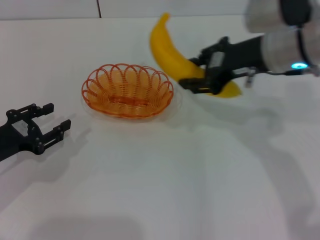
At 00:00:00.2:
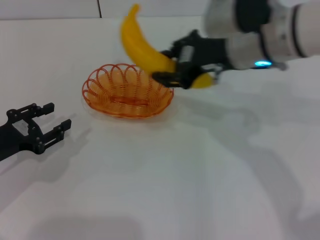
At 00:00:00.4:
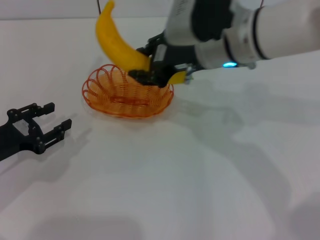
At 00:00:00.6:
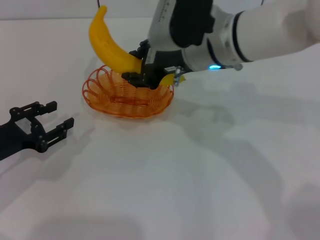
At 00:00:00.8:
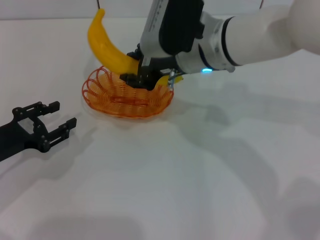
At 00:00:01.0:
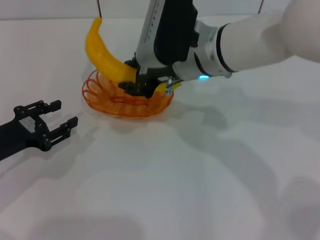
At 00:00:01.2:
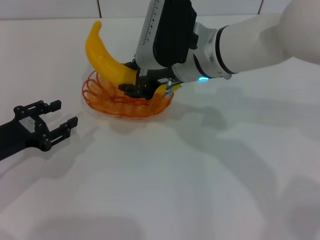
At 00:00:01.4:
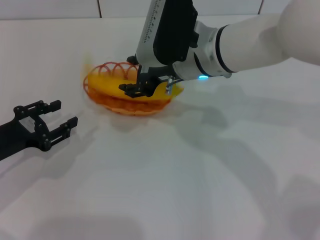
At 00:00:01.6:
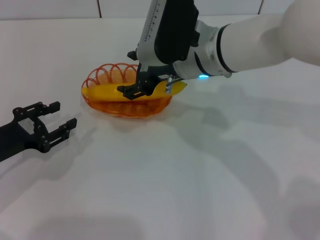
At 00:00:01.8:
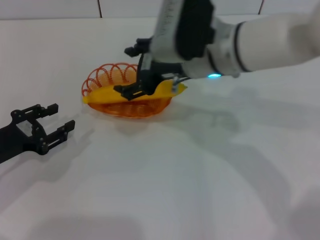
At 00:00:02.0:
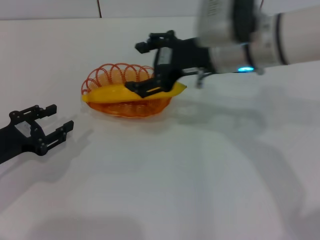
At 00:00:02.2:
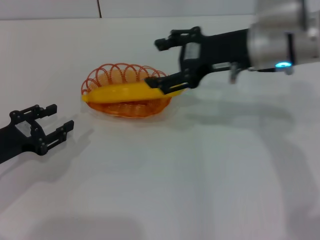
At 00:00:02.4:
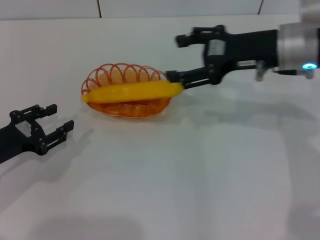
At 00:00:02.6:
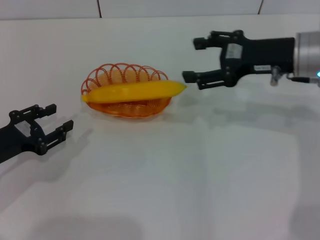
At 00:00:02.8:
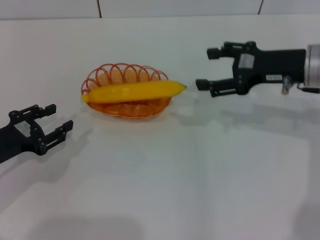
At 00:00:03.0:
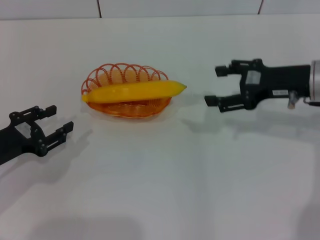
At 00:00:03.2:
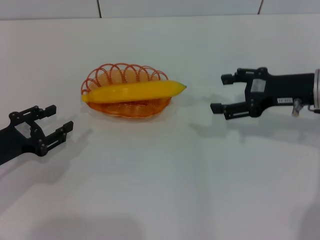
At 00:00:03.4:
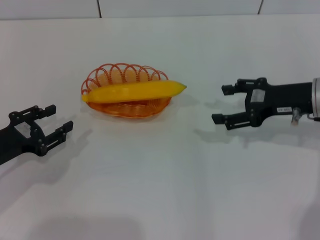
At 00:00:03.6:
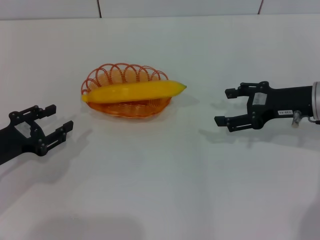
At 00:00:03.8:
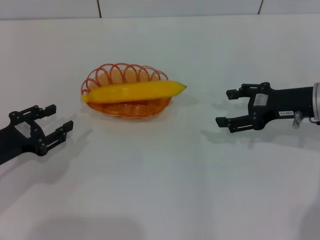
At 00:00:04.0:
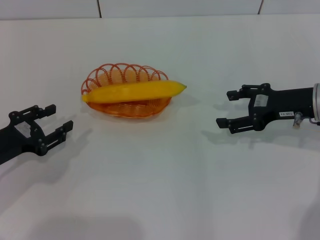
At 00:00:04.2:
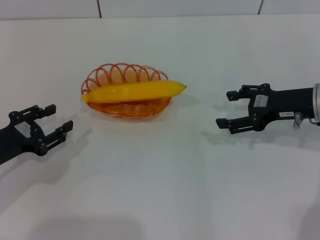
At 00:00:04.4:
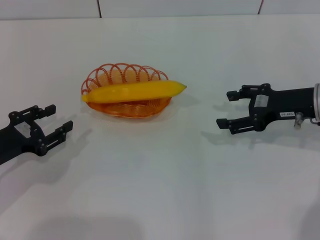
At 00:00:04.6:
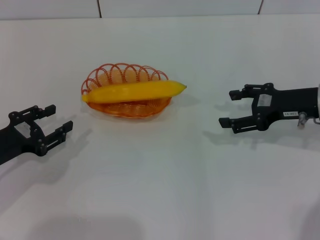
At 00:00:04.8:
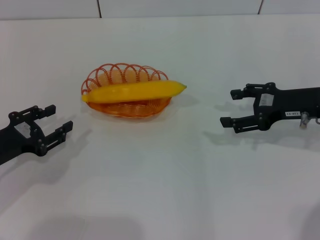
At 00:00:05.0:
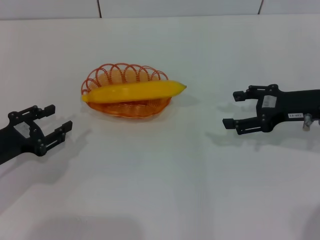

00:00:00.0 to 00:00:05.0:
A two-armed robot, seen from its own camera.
Step, 00:00:00.0 to 00:00:02.0: Place the banana into the basket with the right gripper.
00:00:00.0 to 00:00:01.6: The right gripper moves to the left, about 10 cm, and opens up.
00:00:01.6 to 00:00:03.4: The right gripper is displaced to the right by about 20 cm, and opens its fingers.
00:00:03.4 to 00:00:05.0: The grippers make only small movements.
